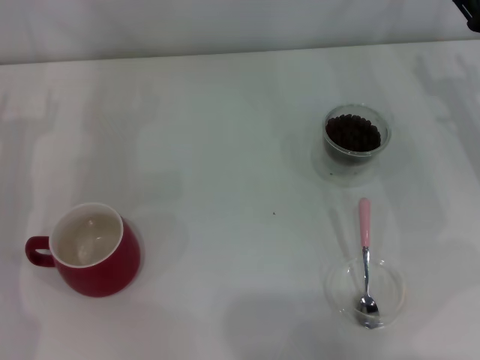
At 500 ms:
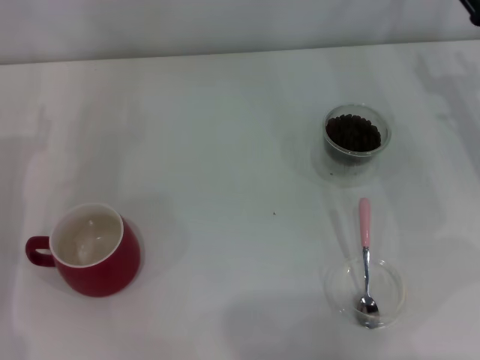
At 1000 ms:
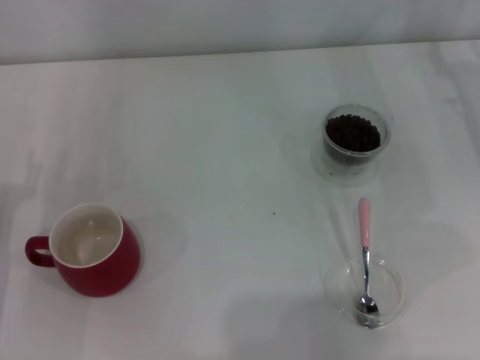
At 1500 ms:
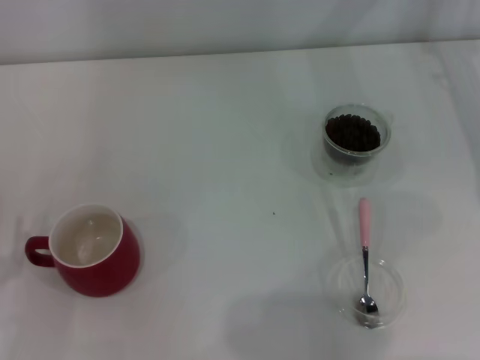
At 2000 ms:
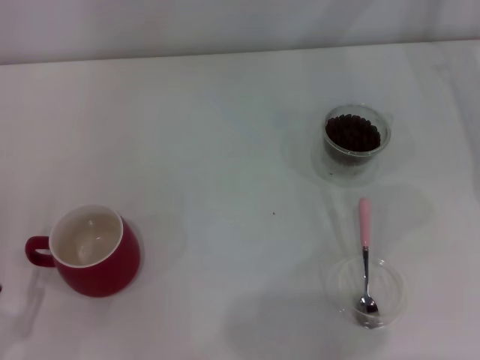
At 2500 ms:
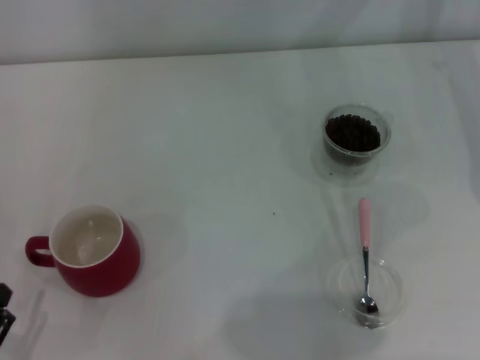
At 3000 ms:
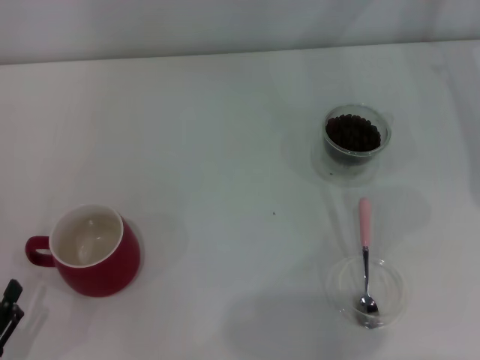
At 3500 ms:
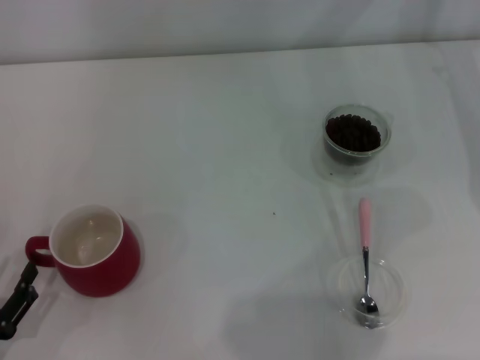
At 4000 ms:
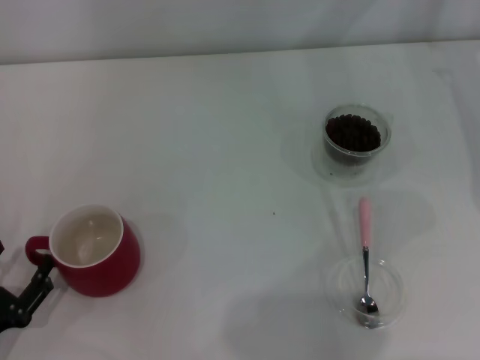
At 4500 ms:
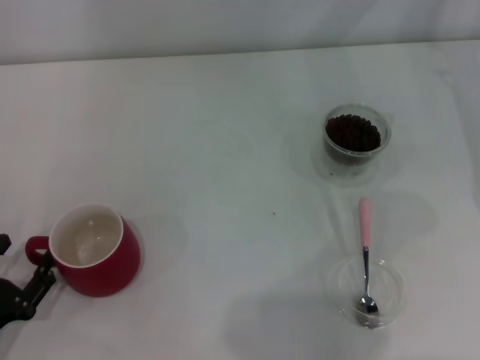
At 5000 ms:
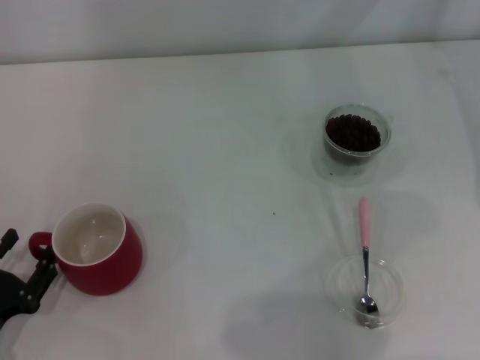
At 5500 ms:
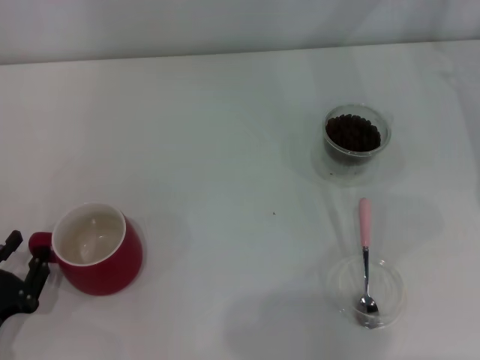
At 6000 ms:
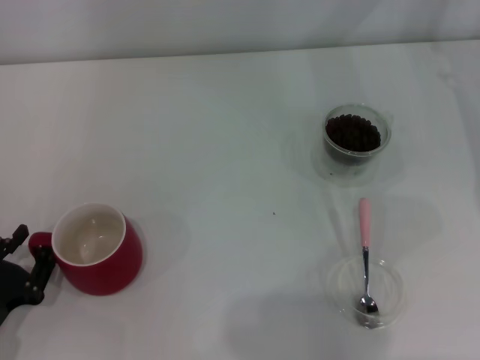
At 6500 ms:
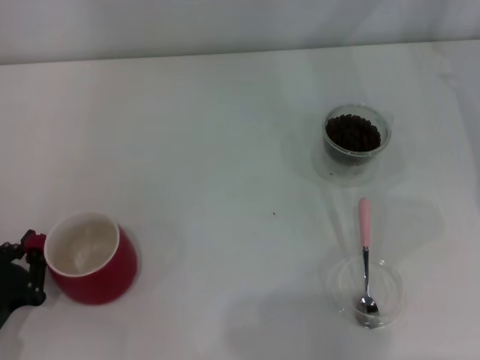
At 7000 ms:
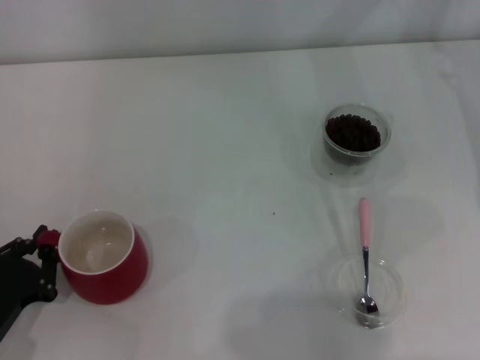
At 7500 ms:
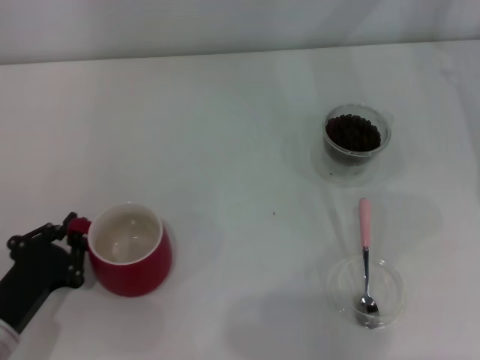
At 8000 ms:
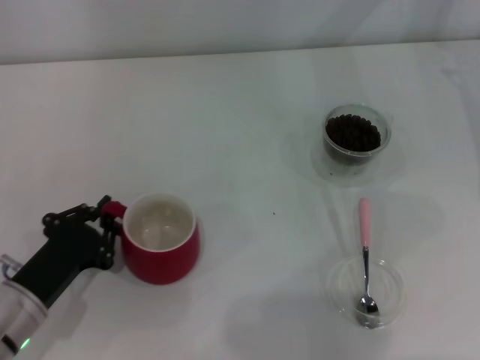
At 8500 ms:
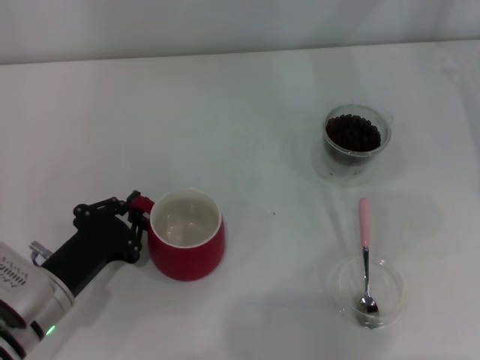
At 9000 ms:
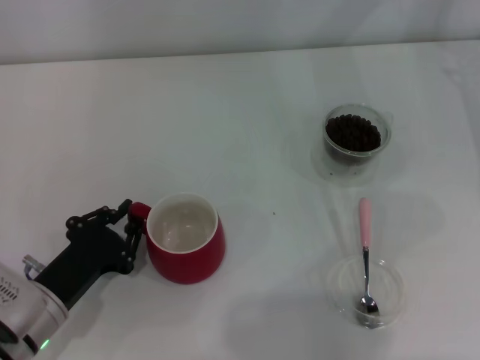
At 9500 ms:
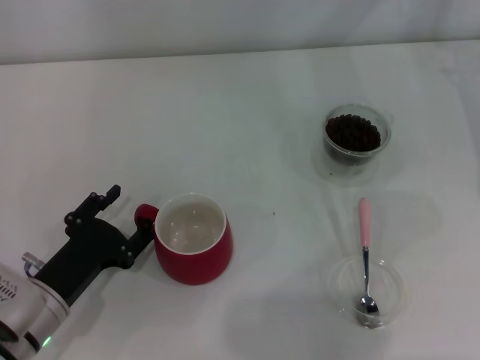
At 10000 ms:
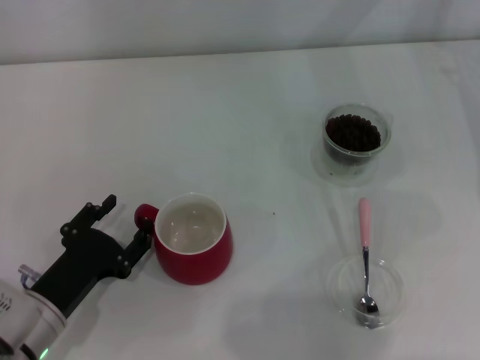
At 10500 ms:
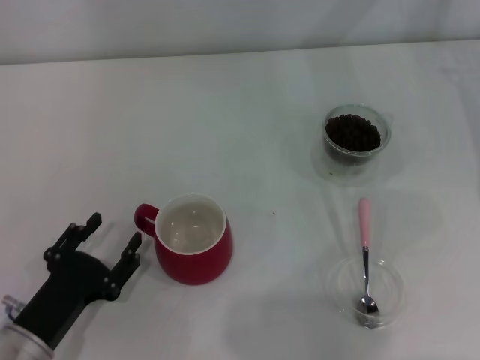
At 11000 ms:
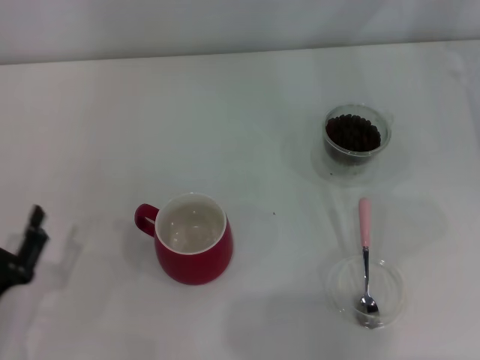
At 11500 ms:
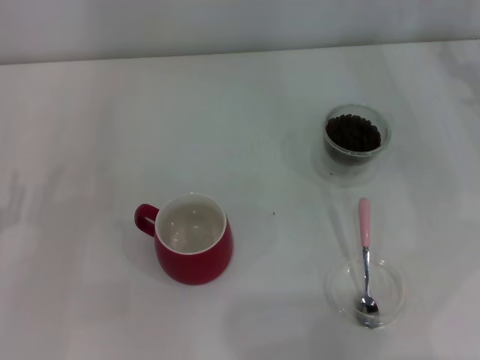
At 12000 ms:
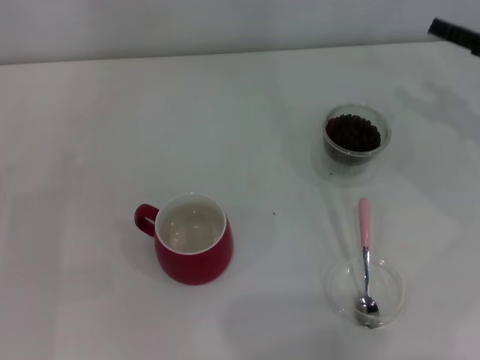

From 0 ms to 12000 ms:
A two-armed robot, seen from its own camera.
Task of the whole recording: Use a pink spoon to take out the coffee beans from the glass and pour them into the red cup.
Step, from 0 ms to 10500 ms: Move the cup to the center of view with the left gripper.
From 2000 ms to 4000 ms: The left gripper shifts by roughly 5 cm.
From 4000 ms to 6000 ms: The left gripper closes up.
From 6000 ms to 8000 ms: The left gripper travels to the right by approximately 5 cm, and closes.
From 8000 ms to 10000 ms: The left gripper opens.
From 10000 ms to 12000 ms: The left gripper goes about 10 cm to the left, while the right gripper travels backward by about 5 cm.

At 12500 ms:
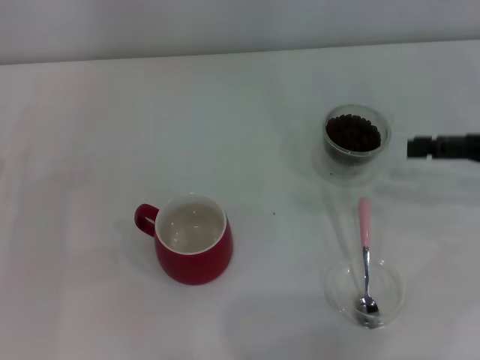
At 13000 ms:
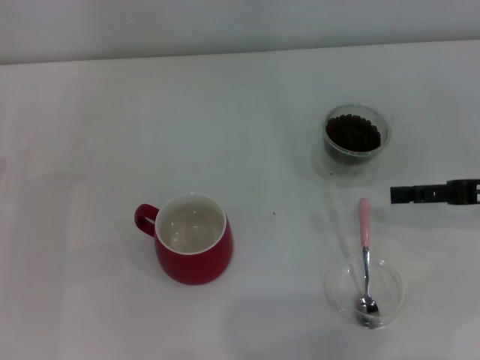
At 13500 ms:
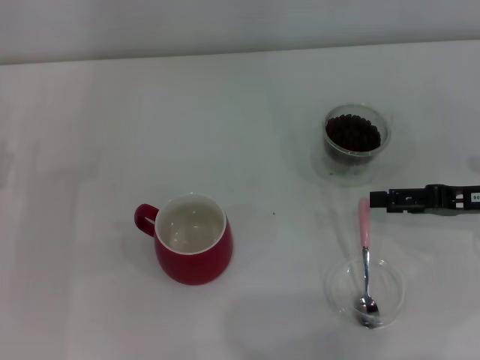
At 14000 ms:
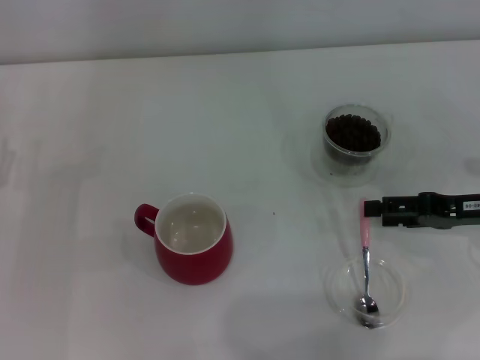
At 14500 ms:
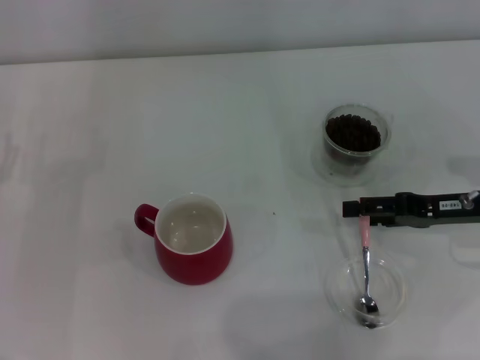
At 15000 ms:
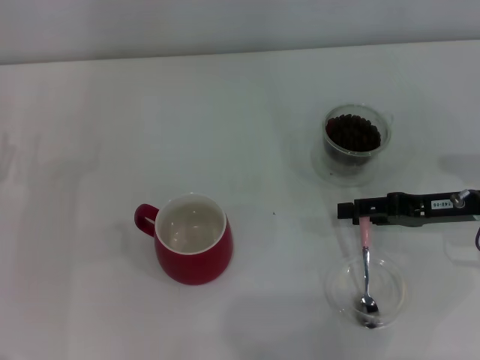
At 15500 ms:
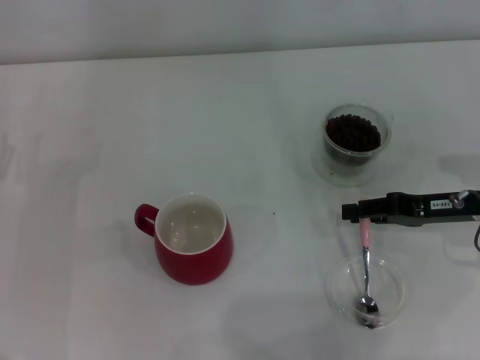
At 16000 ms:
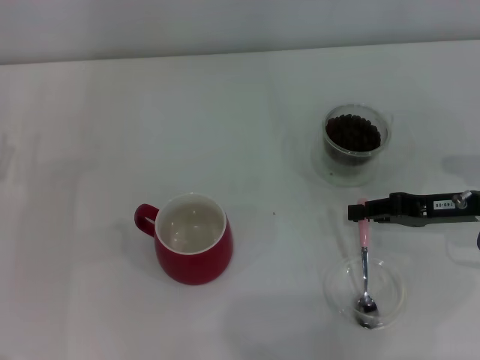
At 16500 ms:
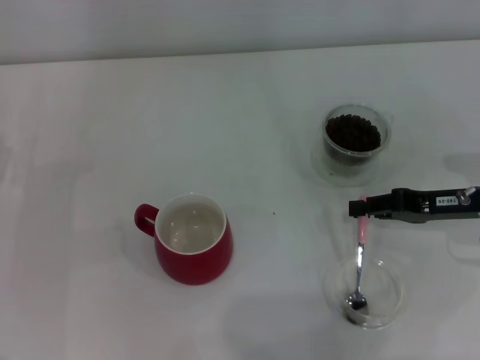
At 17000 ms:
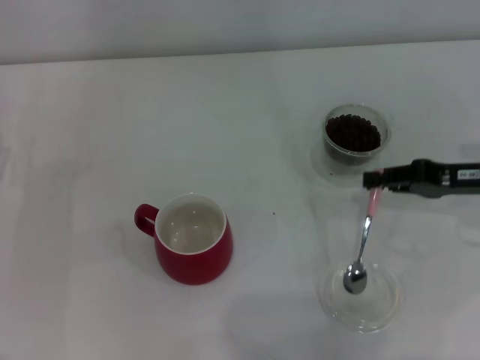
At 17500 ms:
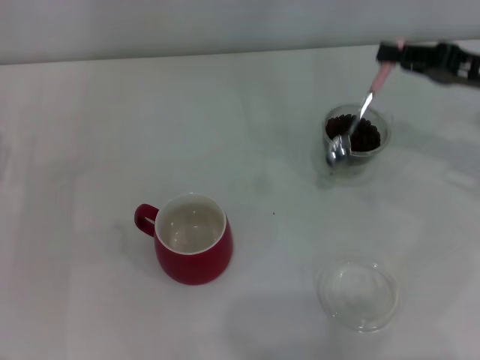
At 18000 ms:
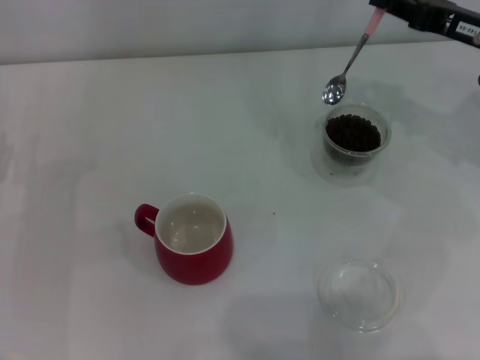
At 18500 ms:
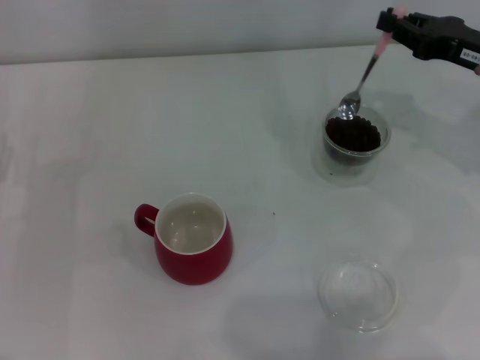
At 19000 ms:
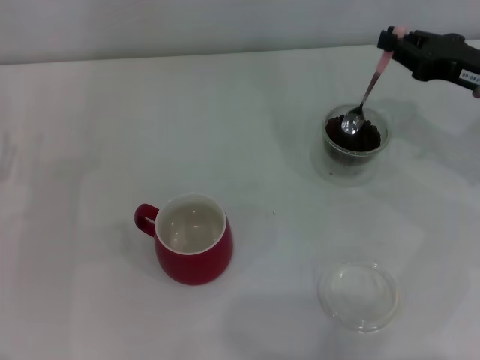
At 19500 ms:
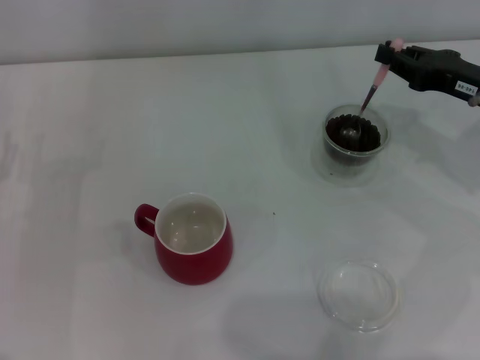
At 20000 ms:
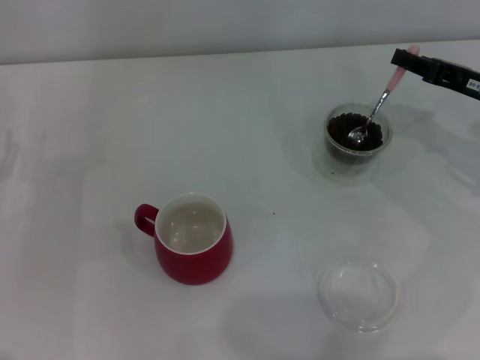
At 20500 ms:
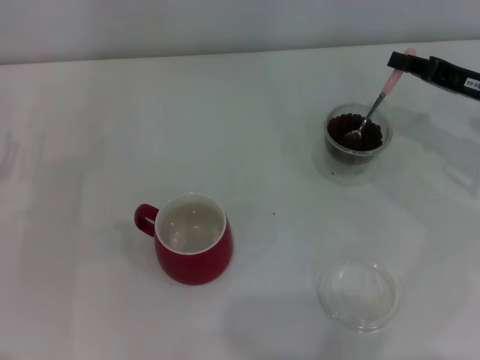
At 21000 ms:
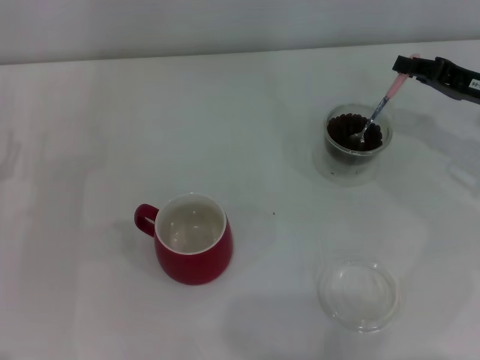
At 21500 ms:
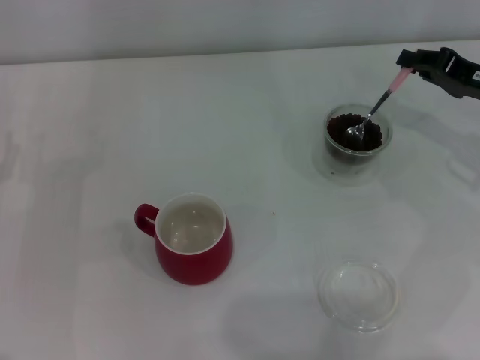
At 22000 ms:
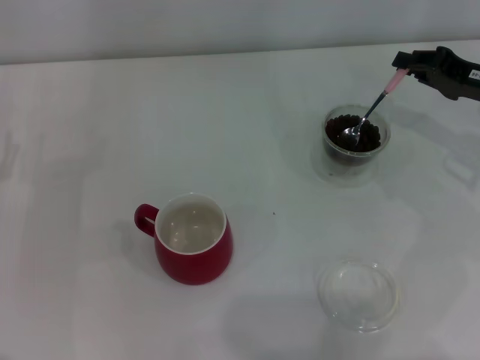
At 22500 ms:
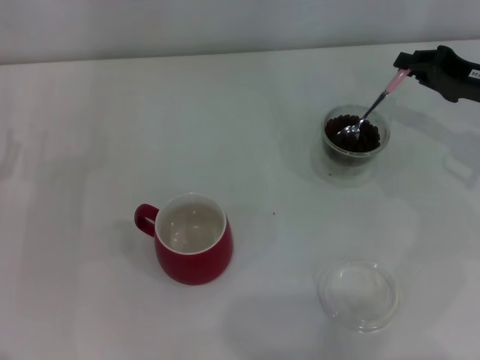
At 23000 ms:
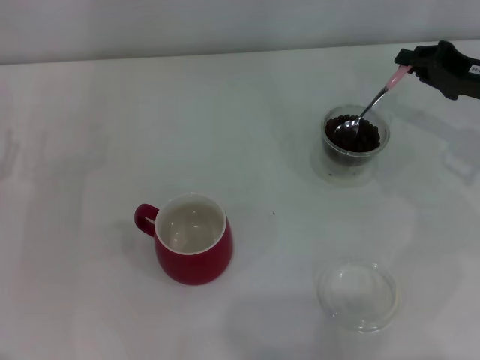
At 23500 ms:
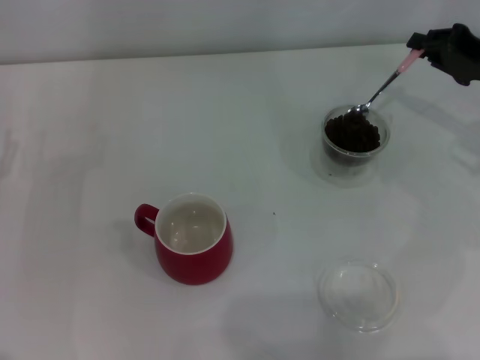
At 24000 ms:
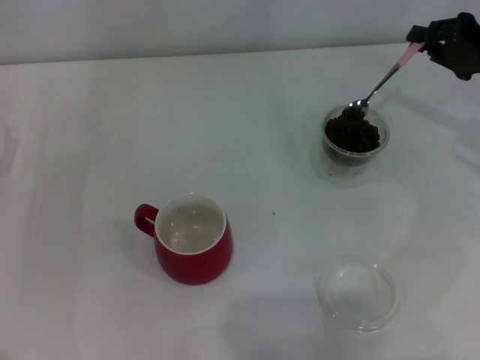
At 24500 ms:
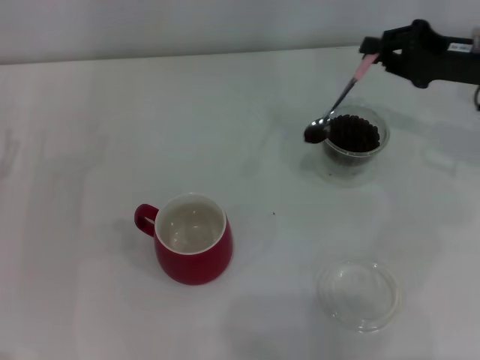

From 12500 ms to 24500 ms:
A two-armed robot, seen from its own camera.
Task of the whole recording: Use a pink spoon to take out the coffee beans from the glass and pour them into the red cup.
Step, from 12500 ms to 17000 ms: Pick up the spoon with the right gripper.
From 12500 ms to 14500 ms: The right gripper heads downward and to the left, covering approximately 10 cm.
From 14500 ms to 16500 ms: The right gripper closes its fingers.
From 16500 ms to 18500 ms: The right gripper goes some 10 cm upward and forward.
From 20500 ms to 22500 ms: The grippers make only small movements.
From 22500 ms to 24500 ms: There are only small adjustments of the grippers.

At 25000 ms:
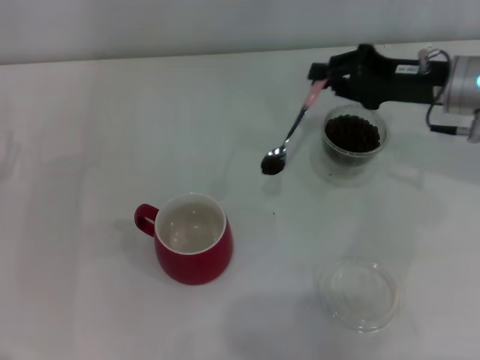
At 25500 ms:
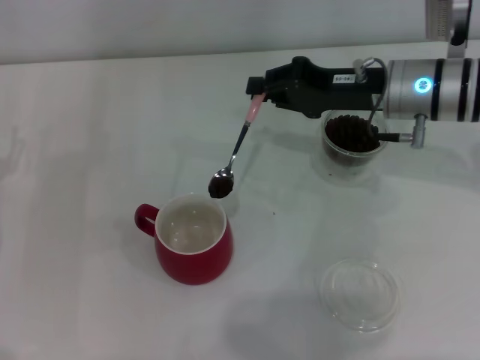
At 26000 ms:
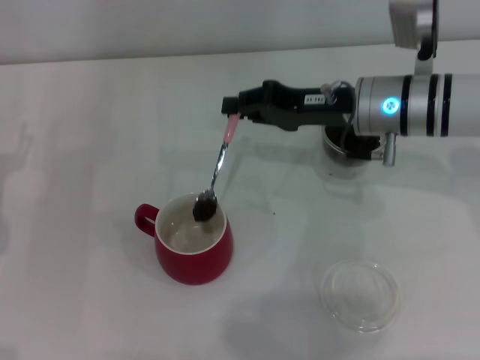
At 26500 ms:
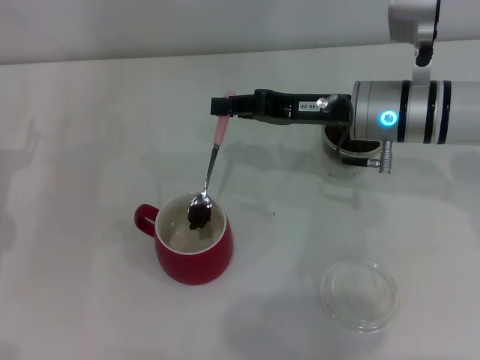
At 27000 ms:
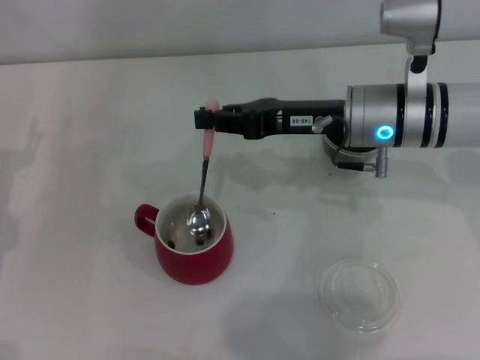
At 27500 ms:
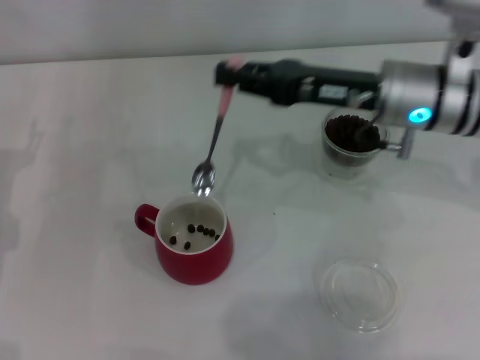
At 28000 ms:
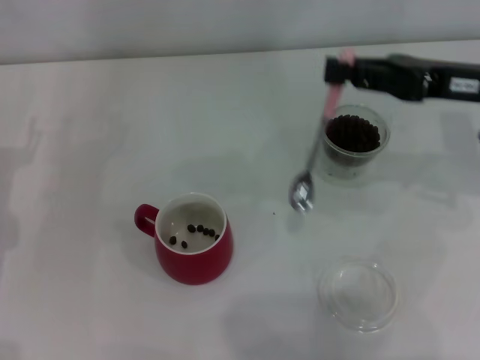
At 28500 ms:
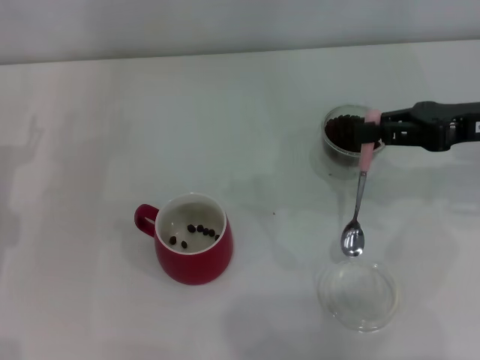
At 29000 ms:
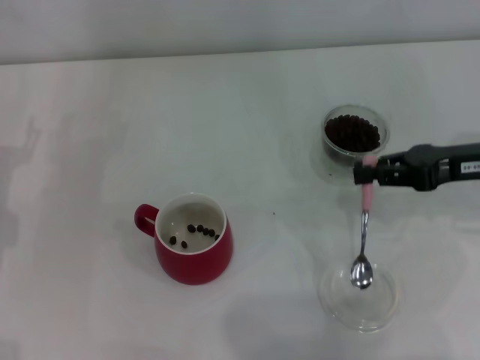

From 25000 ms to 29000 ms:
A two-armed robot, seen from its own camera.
Task of the whole recording: Use a pink spoon to take out the coffee beans from the glass and pour them into the red cup.
Step, from 25000 ms to 27000 ms: Scoop a spoonful of beans into the cup with the right gripper.
From 25000 ms to 27000 ms: The right gripper travels to the left by roughly 10 cm.
From 27000 ms to 29000 ms: The right gripper travels to the right by about 15 cm.
